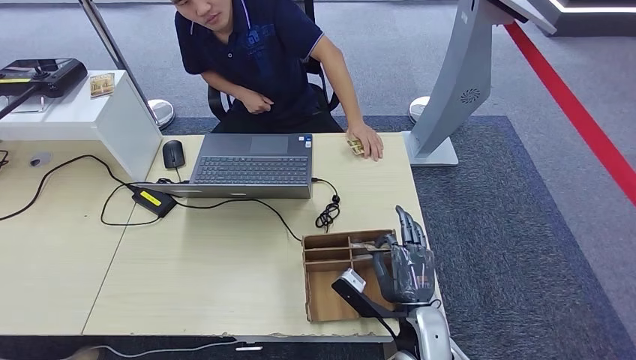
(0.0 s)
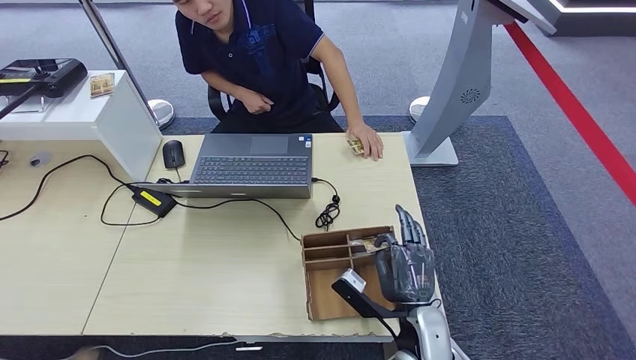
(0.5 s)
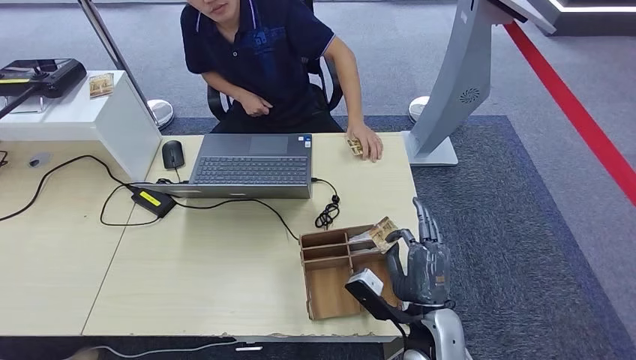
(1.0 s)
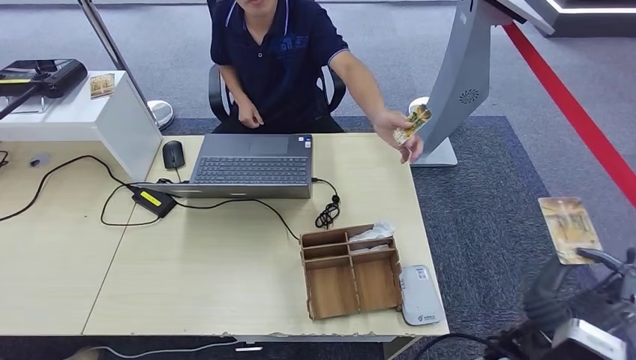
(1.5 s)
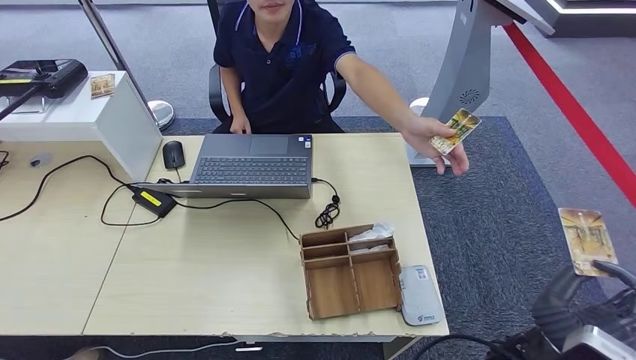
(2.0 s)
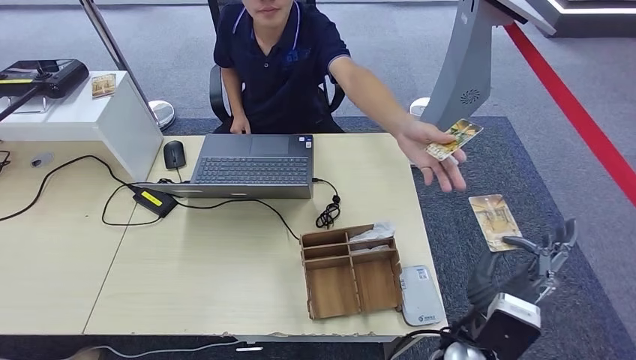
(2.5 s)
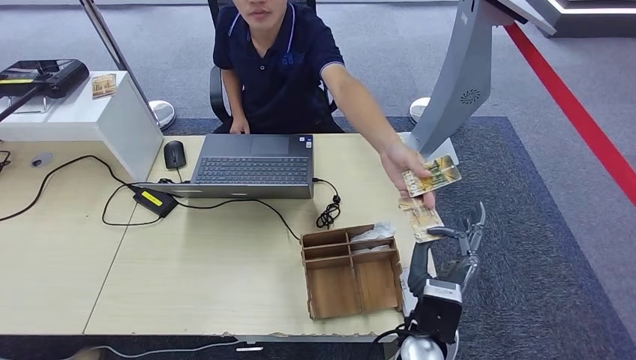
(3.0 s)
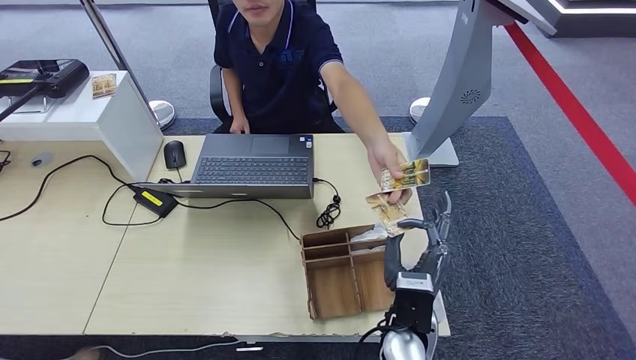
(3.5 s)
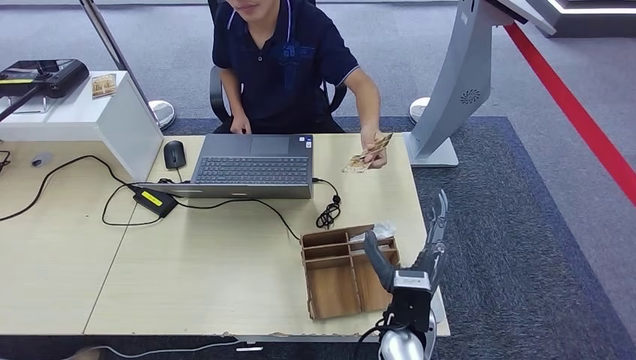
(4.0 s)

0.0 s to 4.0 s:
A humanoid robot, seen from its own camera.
Step, 2.0 to 4.0 s: Hand the room key to the person.
0.0 to 2.0 s: The right hand moves upward and to the right, some 10 cm.
2.0 to 4.0 s: The right hand heads to the left, covering approximately 15 cm.
